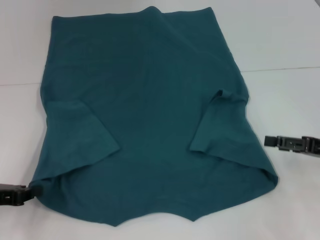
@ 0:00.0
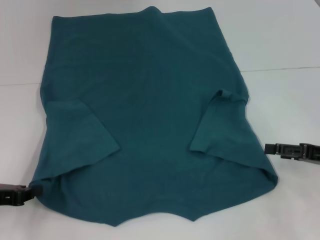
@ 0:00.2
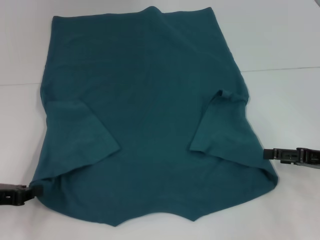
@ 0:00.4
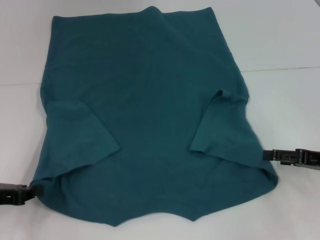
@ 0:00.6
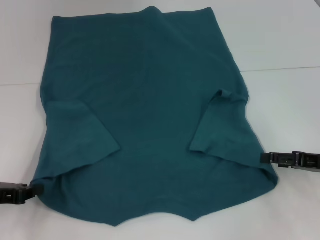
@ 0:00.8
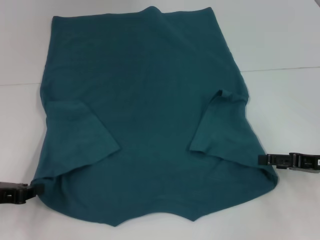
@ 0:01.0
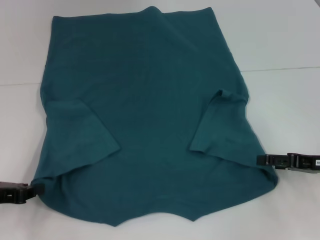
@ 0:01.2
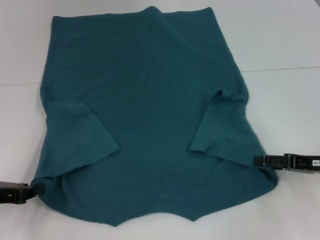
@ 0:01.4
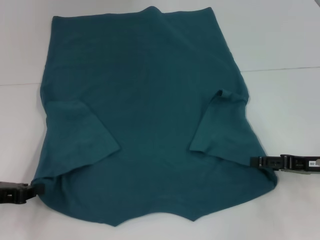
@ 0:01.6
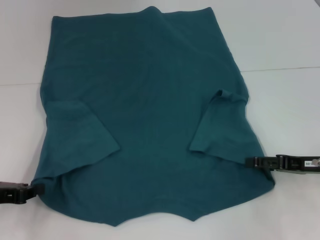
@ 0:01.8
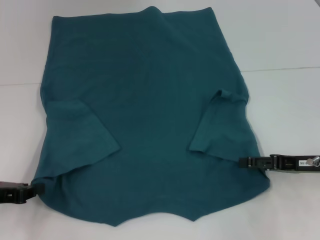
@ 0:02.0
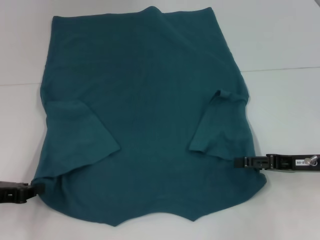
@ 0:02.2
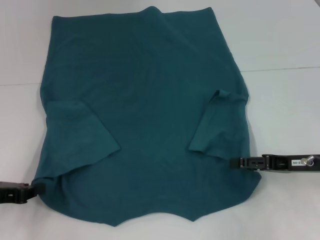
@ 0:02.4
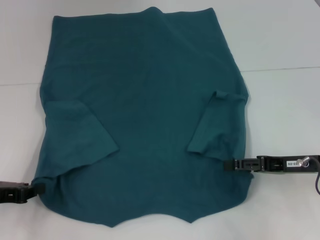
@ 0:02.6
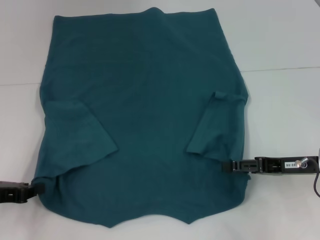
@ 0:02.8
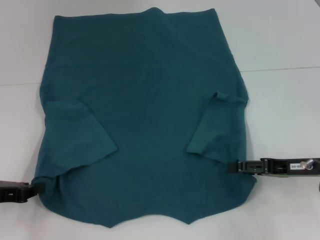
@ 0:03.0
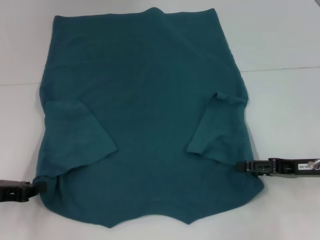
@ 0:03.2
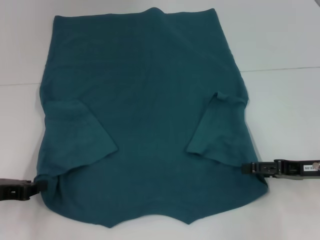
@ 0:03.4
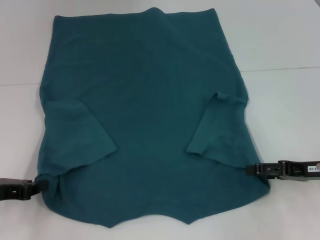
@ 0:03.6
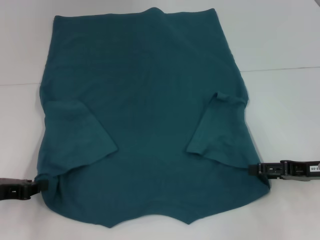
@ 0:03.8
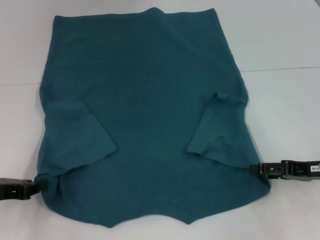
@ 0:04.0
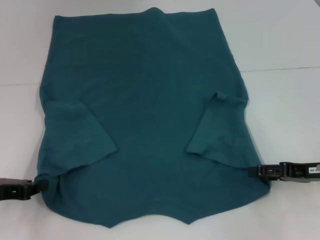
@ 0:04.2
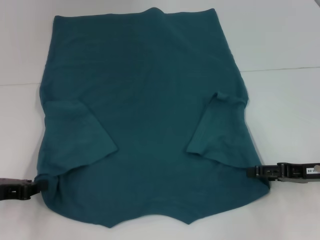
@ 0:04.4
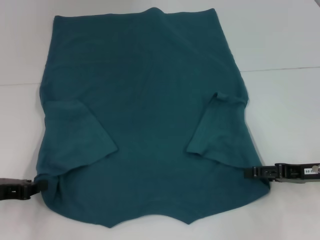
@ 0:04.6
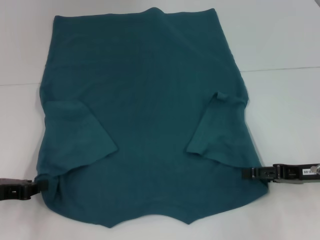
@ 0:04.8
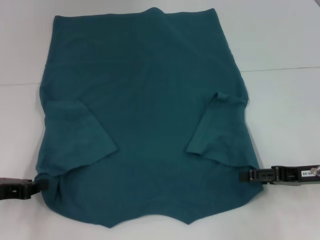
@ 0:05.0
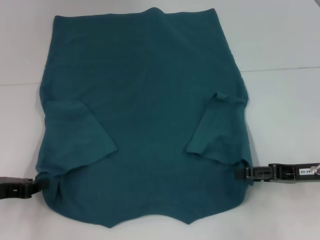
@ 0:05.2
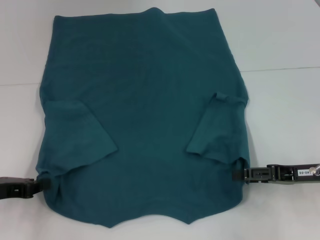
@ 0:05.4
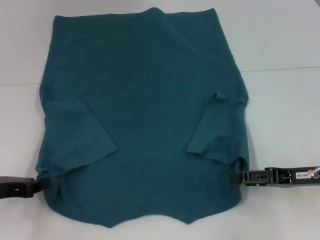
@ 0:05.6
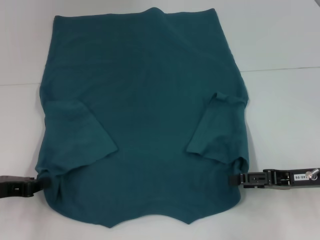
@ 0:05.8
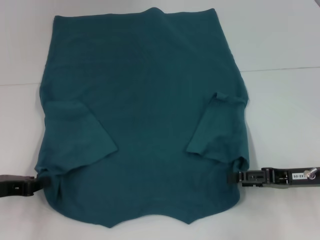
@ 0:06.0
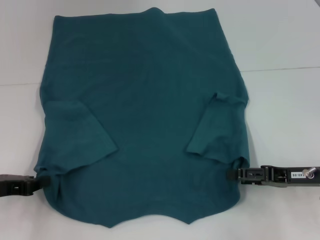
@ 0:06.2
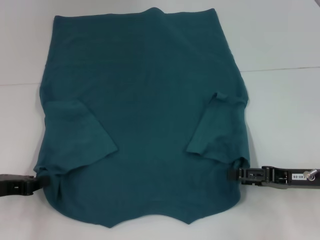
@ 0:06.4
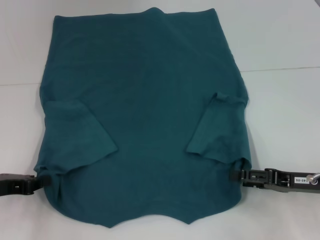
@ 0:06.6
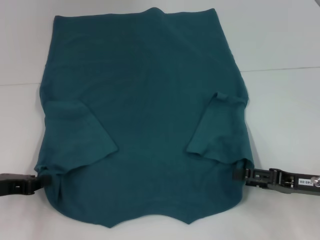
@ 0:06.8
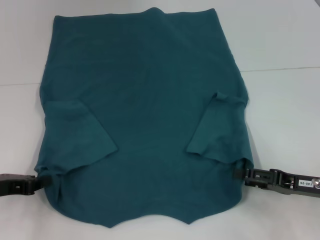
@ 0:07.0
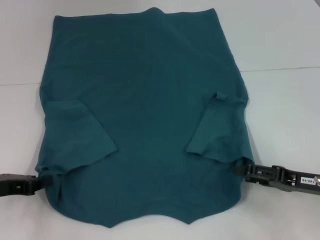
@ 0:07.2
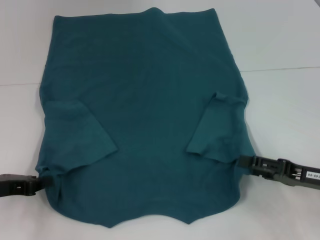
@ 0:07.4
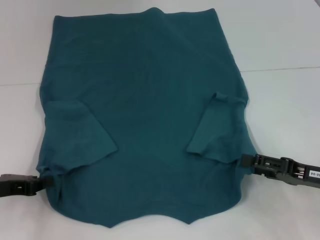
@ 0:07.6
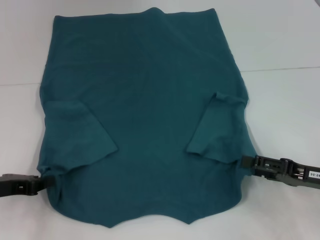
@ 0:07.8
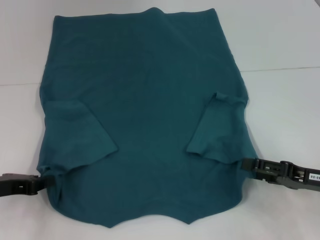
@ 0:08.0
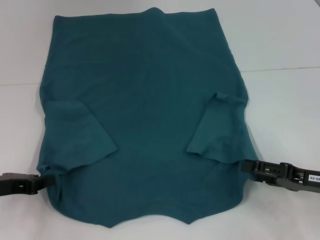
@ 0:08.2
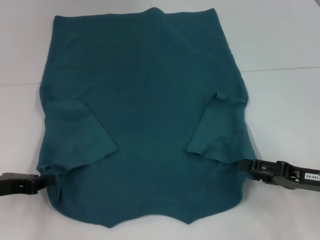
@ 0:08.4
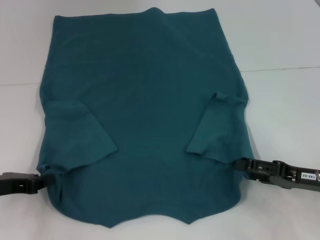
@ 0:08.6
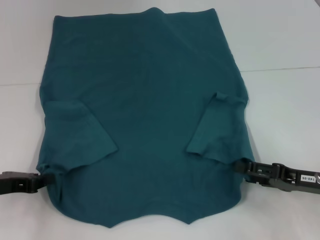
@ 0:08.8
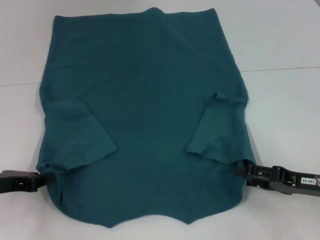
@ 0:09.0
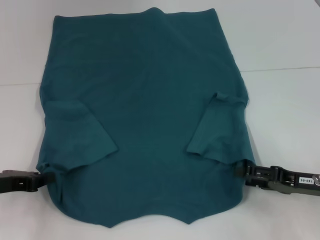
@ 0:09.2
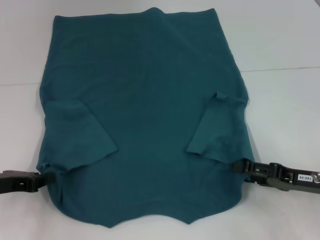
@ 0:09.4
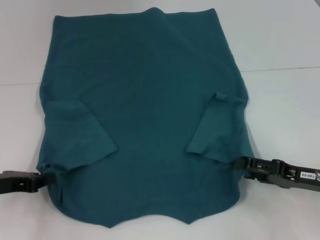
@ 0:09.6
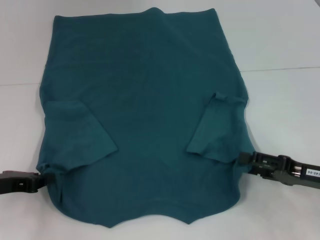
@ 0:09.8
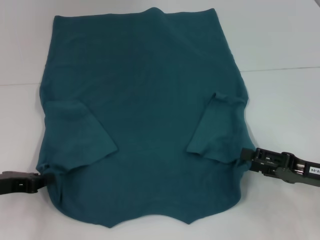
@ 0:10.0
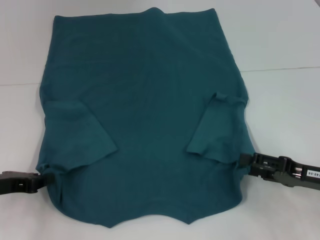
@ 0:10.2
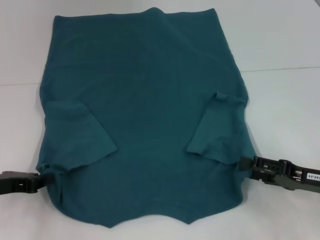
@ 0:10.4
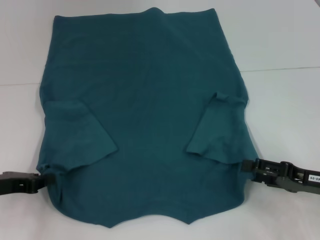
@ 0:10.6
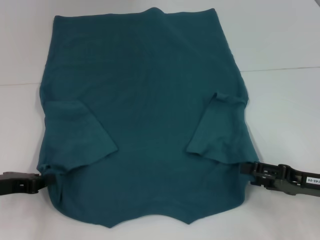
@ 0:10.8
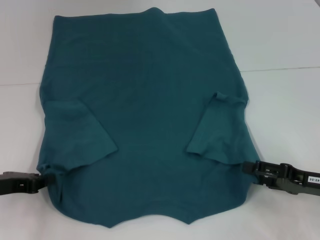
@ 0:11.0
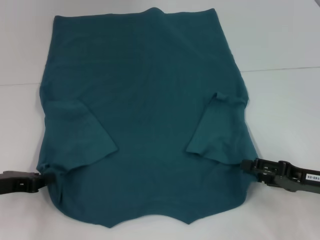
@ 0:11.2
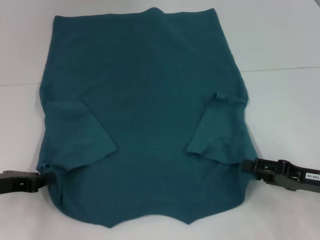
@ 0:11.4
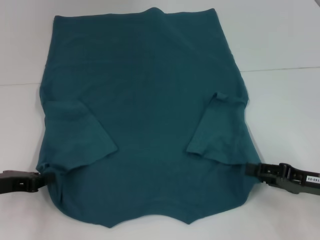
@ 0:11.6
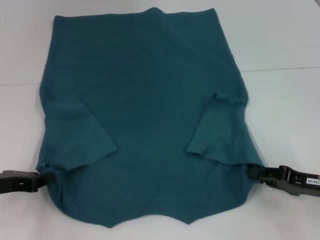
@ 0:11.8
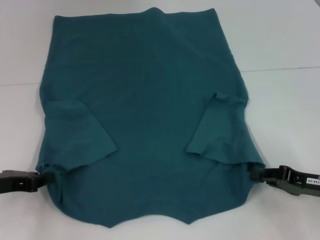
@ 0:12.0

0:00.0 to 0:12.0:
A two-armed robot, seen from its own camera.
0:00.0 to 0:01.6: The grippers make only small movements.
0:01.6 to 0:06.0: The grippers move only a little.
0:06.0 to 0:09.0: There are only small adjustments of the grippers.
0:09.0 to 0:10.4: There are only small adjustments of the grippers.
0:10.4 to 0:12.0: The right gripper closes its fingers.

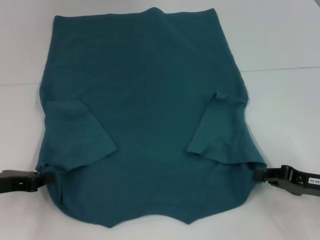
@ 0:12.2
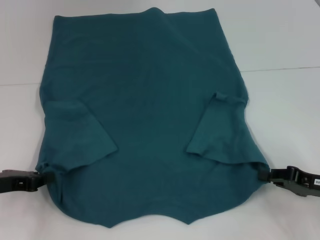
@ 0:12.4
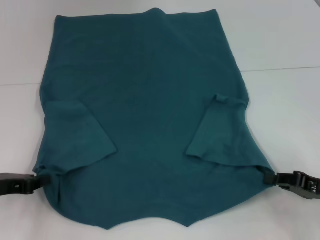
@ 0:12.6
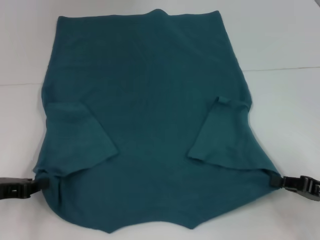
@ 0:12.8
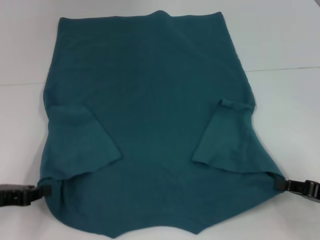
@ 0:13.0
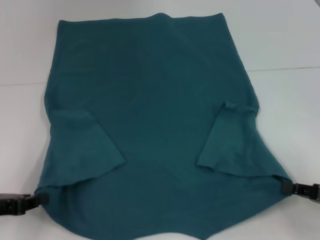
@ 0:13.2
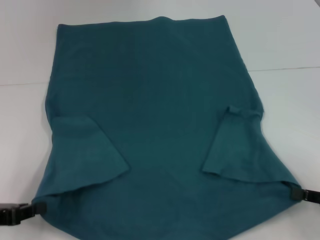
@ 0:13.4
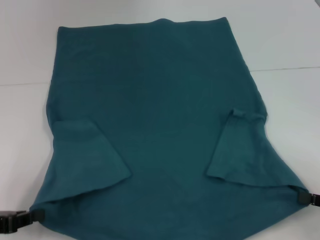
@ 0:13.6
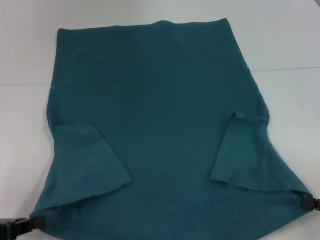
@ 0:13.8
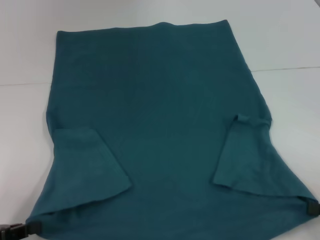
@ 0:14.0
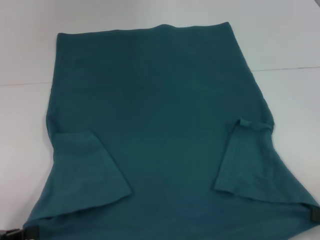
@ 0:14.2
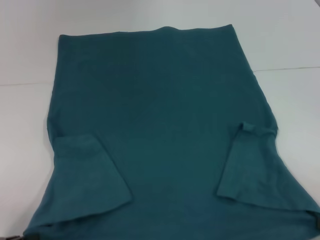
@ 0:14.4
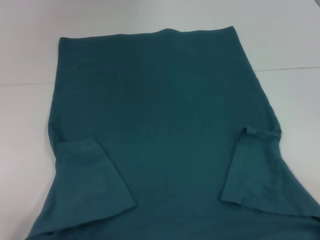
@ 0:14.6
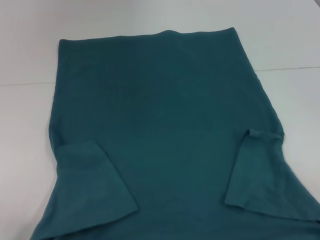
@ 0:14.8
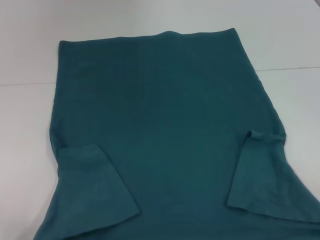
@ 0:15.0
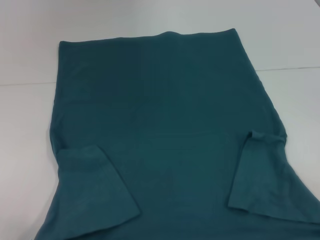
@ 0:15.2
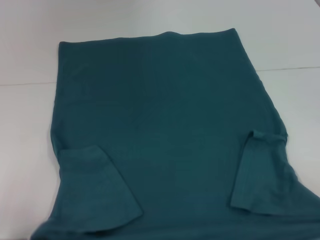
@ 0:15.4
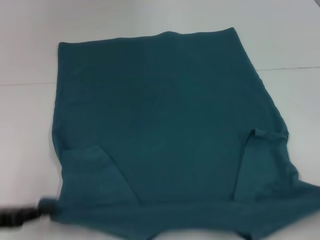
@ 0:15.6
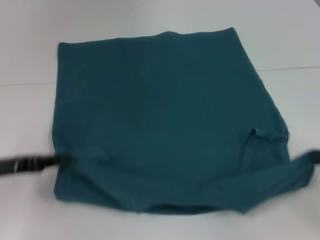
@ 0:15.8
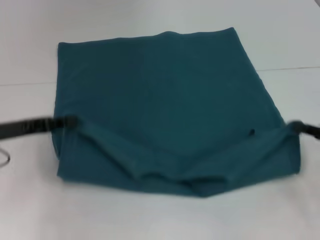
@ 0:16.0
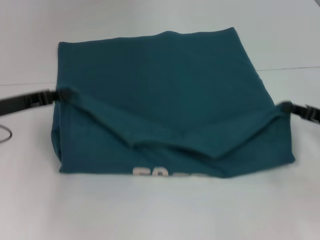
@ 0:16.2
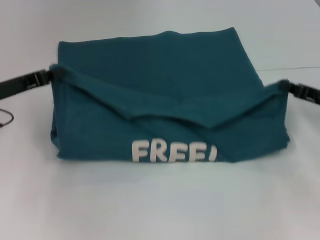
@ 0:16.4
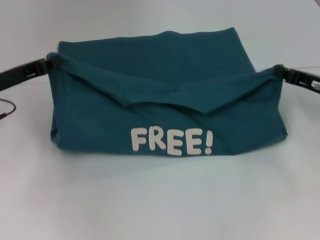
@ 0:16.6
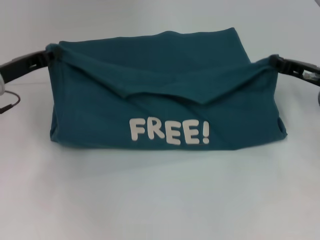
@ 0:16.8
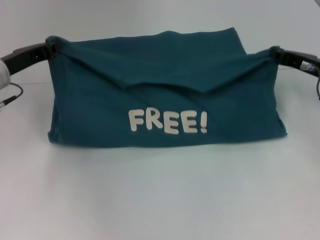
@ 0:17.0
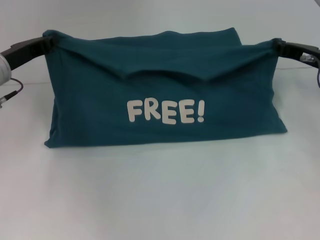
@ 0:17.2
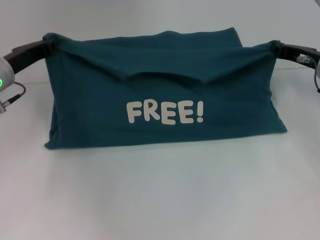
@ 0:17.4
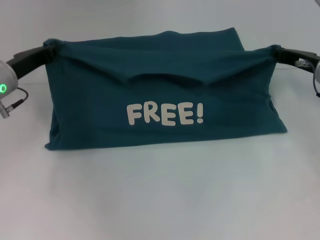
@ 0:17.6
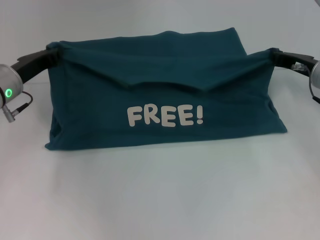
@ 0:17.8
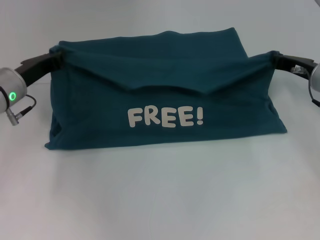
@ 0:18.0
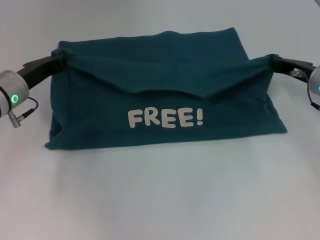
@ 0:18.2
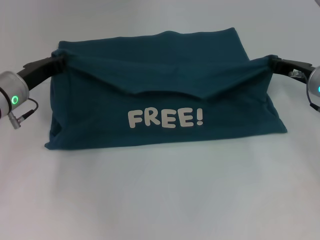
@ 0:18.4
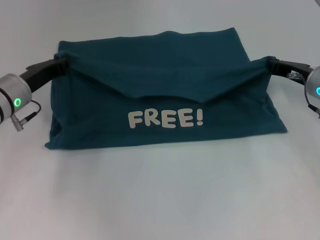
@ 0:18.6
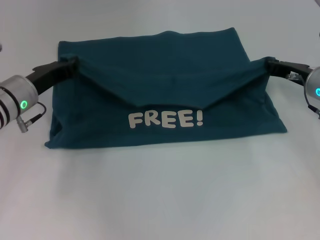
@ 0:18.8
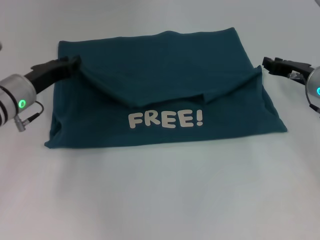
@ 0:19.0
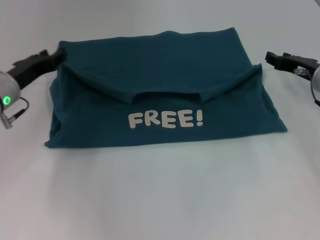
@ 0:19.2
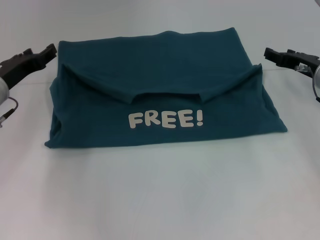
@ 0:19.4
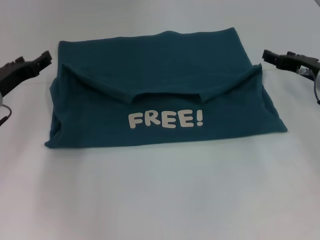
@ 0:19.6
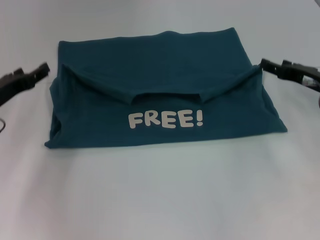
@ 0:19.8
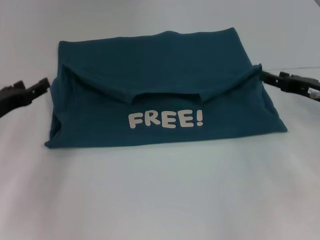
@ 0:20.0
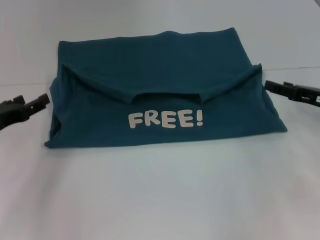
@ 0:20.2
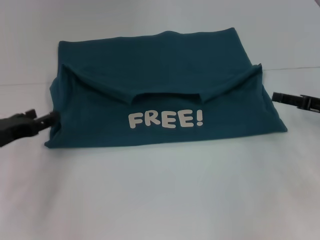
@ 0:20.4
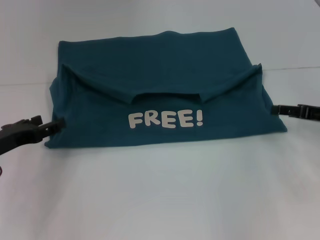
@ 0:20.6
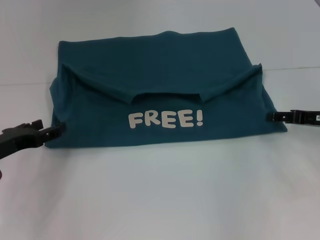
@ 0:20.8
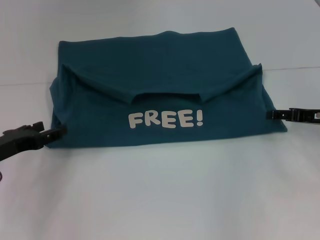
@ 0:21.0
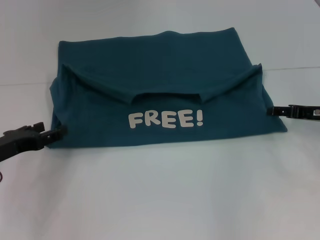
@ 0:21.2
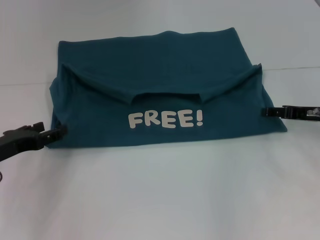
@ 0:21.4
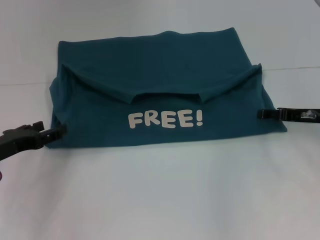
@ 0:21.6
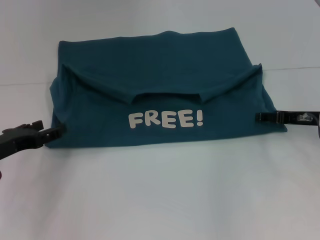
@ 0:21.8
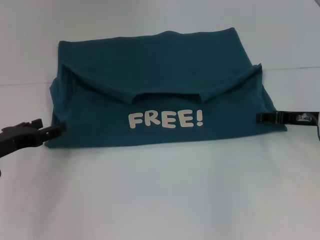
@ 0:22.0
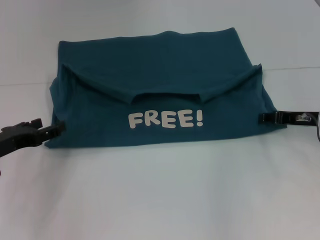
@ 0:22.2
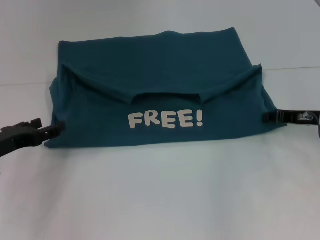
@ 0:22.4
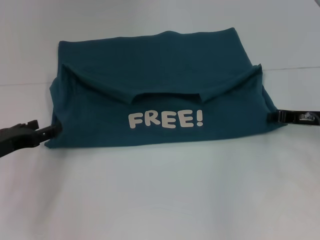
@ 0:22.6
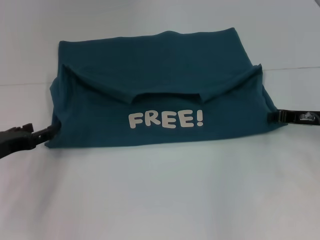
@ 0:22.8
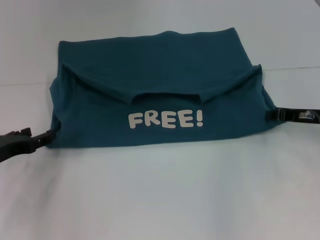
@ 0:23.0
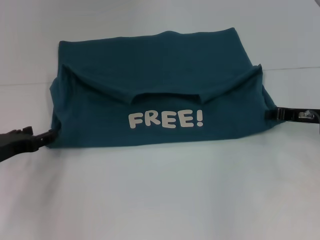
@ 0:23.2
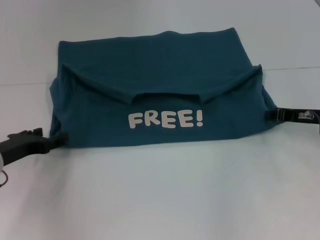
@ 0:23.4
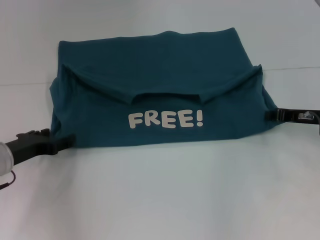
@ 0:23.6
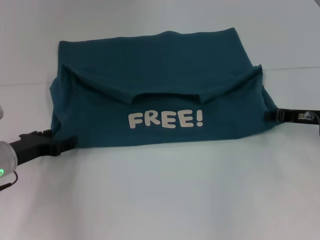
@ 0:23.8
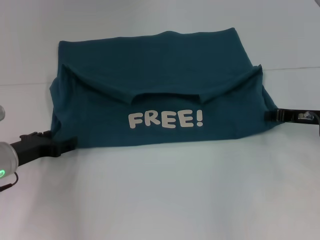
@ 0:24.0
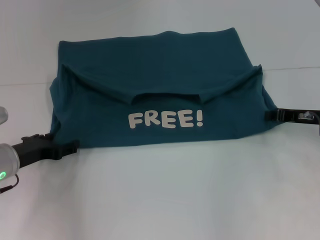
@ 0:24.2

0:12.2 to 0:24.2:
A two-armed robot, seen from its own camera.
Step, 0:12.4 to 0:19.2: Fold the clothes to the left.
Step, 0:12.4 to 0:19.2: Fold the clothes to the right.
0:12.2 to 0:13.8: The right gripper goes approximately 10 cm backward and to the right. Meanwhile the left gripper travels backward by about 10 cm.
0:13.8 to 0:15.2: The right gripper heads backward, covering about 5 cm. Meanwhile the left gripper moves approximately 5 cm.
0:15.2 to 0:16.6: The grippers both shift forward by approximately 25 cm.
0:16.6 to 0:18.2: The right gripper ends up some 5 cm from where it was; the left gripper ends up roughly 5 cm from where it was.
0:18.2 to 0:19.8: The right gripper opens up, while the left gripper moves approximately 5 cm, and opens.
0:19.8 to 0:21.2: The left gripper moves backward, approximately 5 cm.
0:21.2 to 0:22.6: The right gripper closes up.
0:22.6 to 0:24.2: The left gripper shifts by roughly 5 cm.
